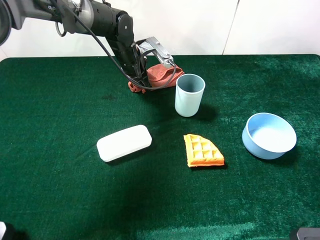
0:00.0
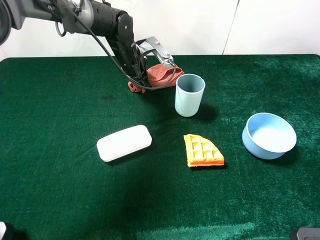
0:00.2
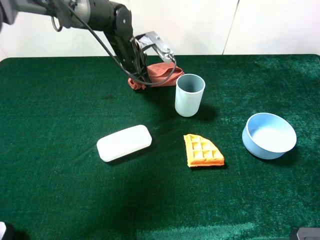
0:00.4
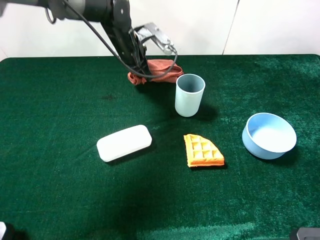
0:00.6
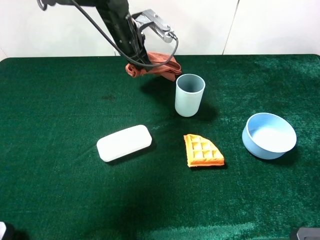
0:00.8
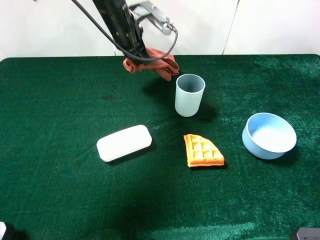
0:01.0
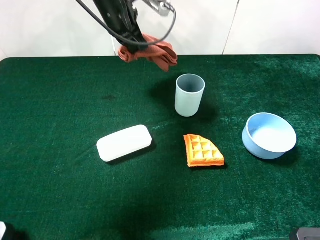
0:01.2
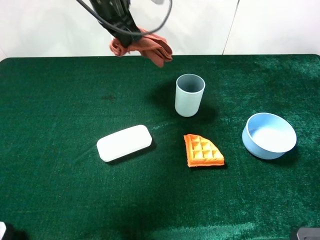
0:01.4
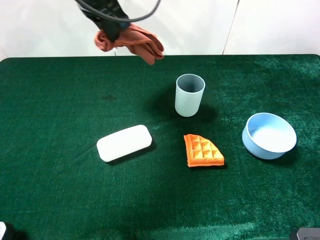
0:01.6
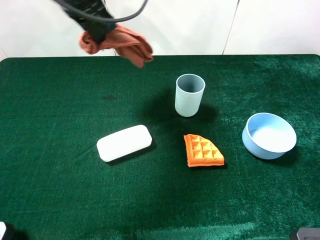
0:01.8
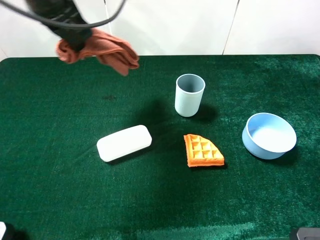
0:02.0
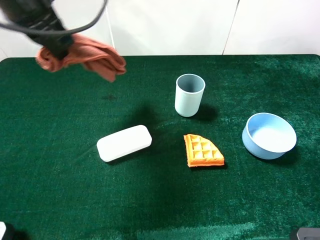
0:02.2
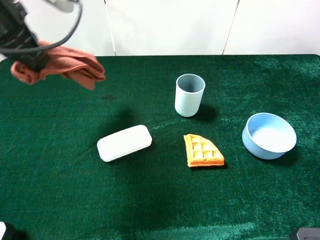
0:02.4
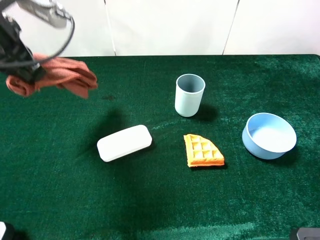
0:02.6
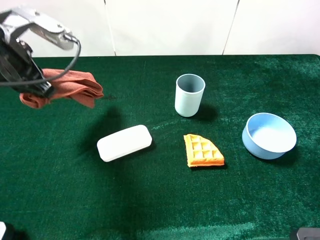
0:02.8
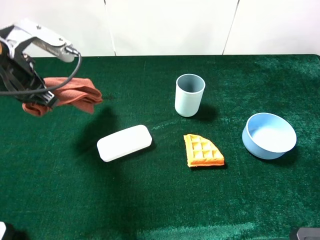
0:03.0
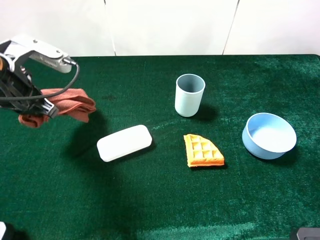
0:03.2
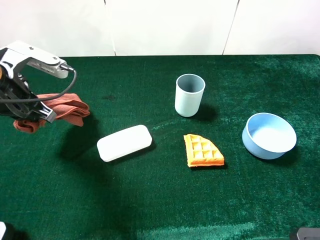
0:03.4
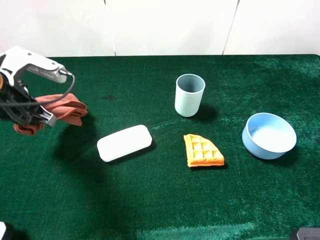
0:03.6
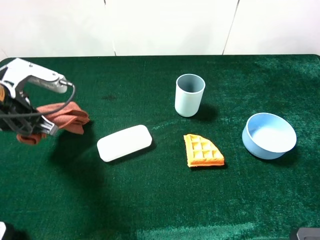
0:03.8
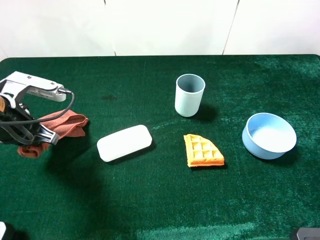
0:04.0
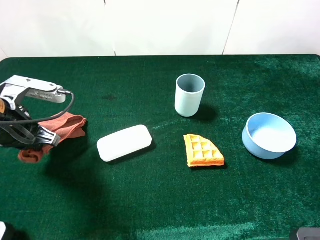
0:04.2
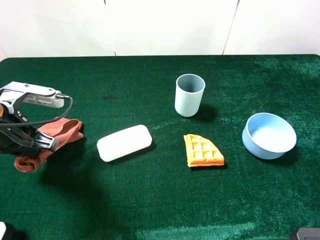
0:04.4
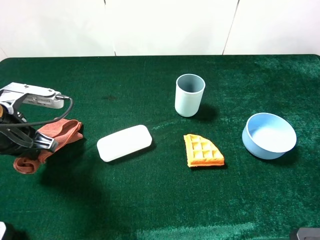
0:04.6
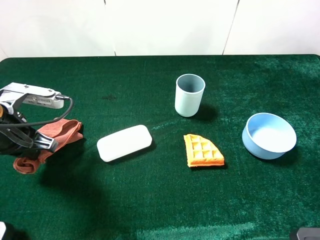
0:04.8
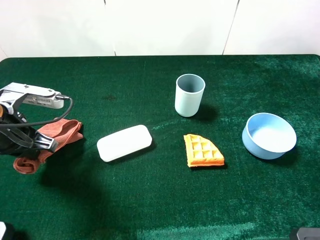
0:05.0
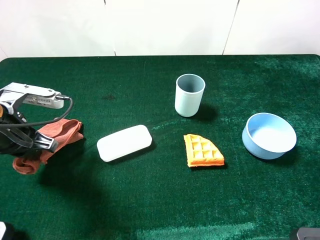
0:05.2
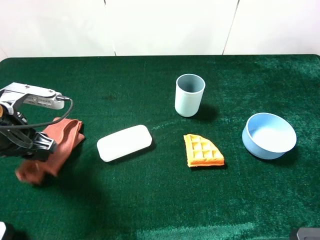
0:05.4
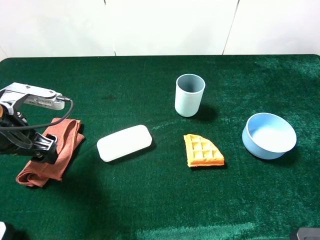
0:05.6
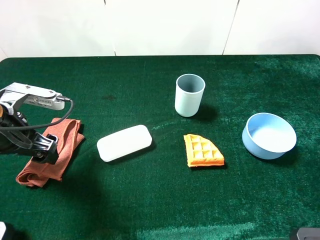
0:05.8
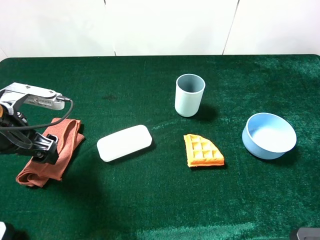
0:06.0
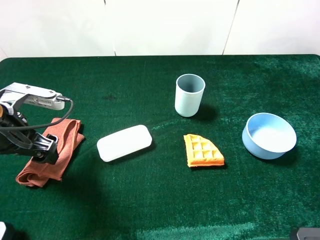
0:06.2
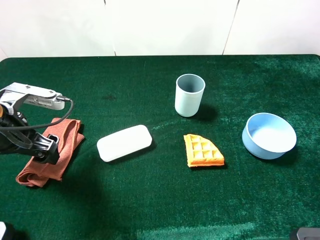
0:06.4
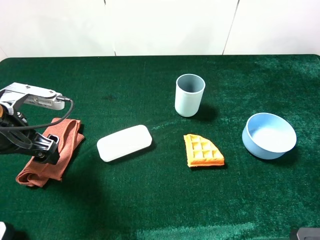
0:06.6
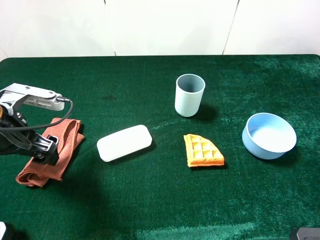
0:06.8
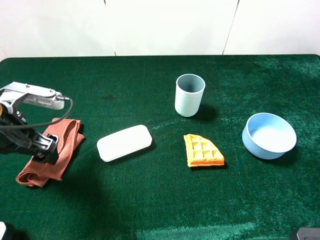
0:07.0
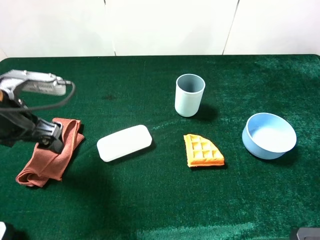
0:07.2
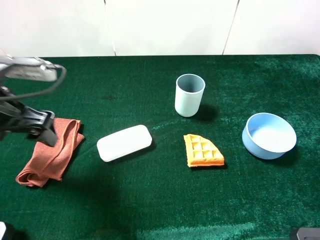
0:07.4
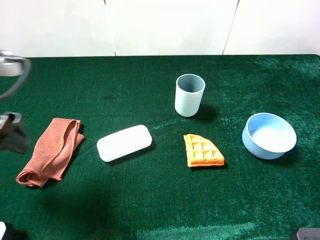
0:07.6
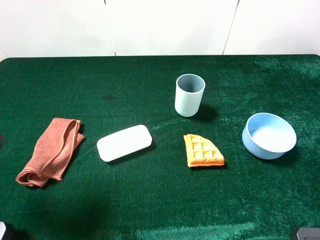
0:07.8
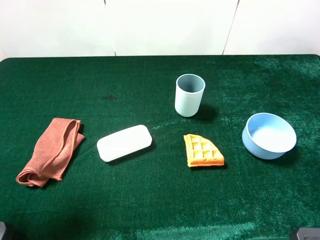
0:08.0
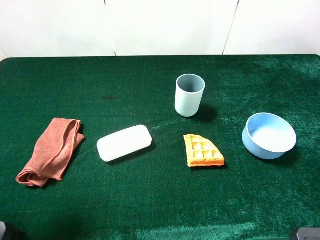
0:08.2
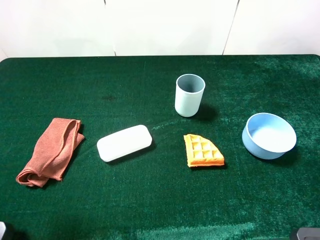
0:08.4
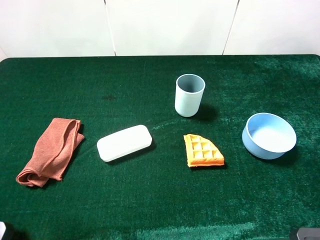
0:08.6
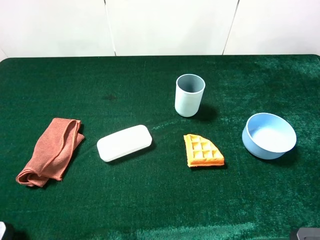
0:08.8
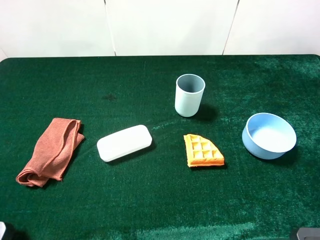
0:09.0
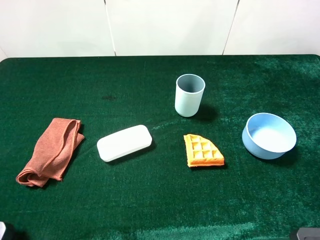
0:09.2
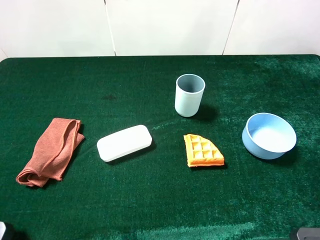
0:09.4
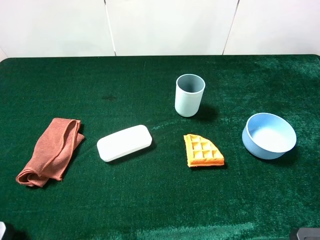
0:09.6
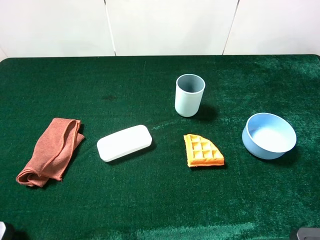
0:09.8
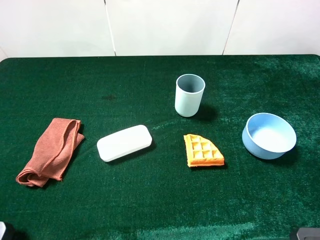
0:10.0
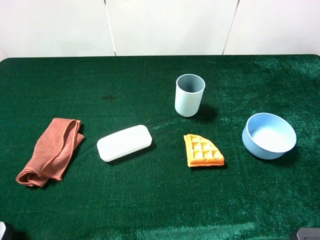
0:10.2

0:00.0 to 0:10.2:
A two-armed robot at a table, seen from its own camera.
Task of the whole recording: the gripper move the object.
Step, 0:00.4 to 0:07.2: Place the brown towel on the table with the left gripper.
0:00.0 to 0:01.4: The left gripper goes roughly 15 cm upward.
0:01.4 to 0:03.0: The left gripper goes approximately 20 cm backward and to the left.
0:03.0 to 0:04.4: The left gripper shifts approximately 10 cm downward and backward.
0:04.4 to 0:05.8: The left gripper opens its fingers.
0:05.8 to 0:07.2: The grippers make only small movements.
0:07.2 to 0:08.8: The left gripper goes roughly 20 cm backward, upward and to the left.
0:08.8 to 0:10.2: Neither gripper changes place.
